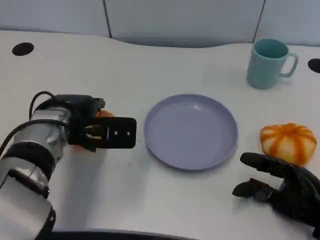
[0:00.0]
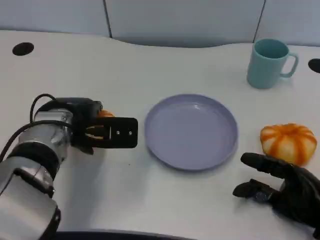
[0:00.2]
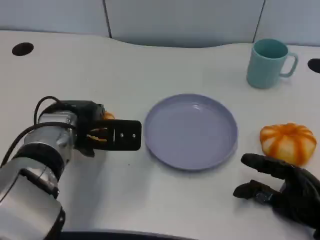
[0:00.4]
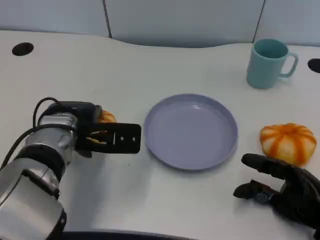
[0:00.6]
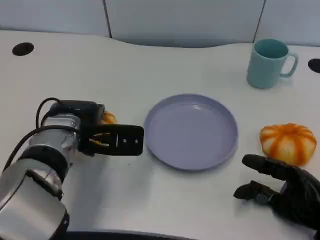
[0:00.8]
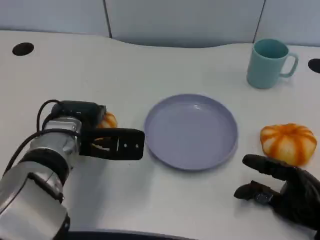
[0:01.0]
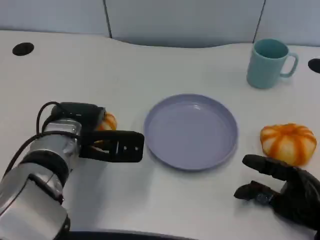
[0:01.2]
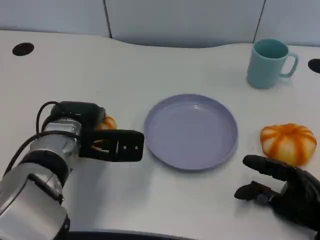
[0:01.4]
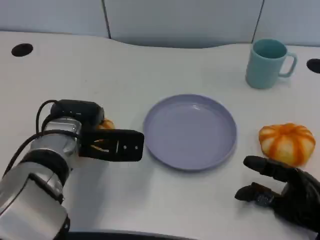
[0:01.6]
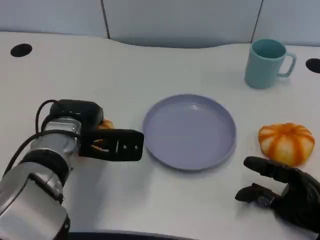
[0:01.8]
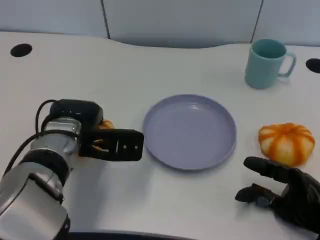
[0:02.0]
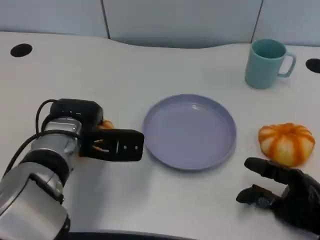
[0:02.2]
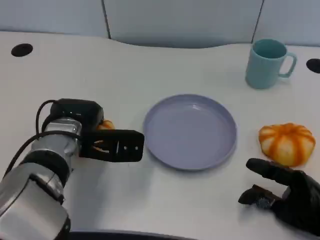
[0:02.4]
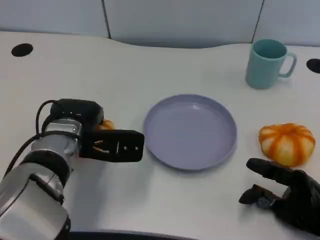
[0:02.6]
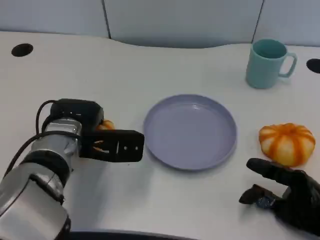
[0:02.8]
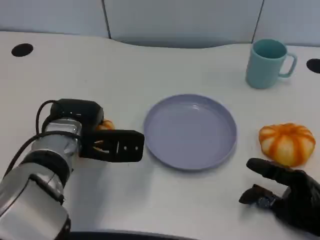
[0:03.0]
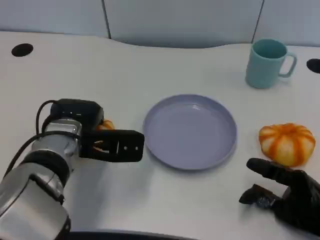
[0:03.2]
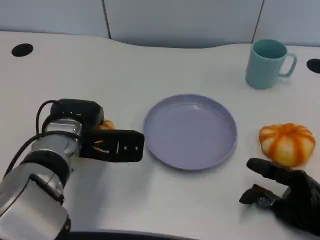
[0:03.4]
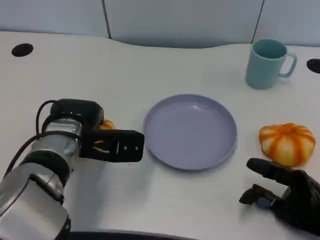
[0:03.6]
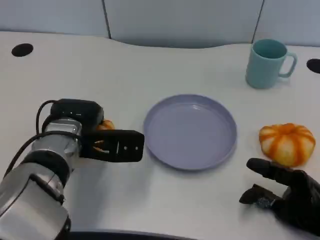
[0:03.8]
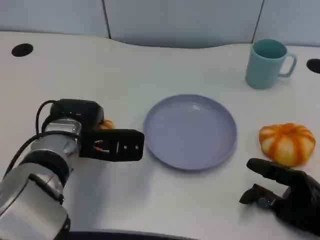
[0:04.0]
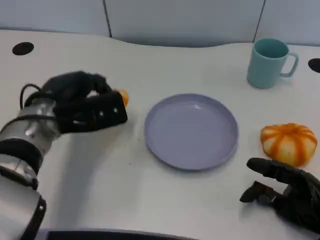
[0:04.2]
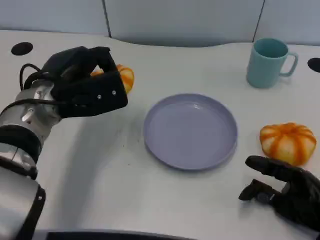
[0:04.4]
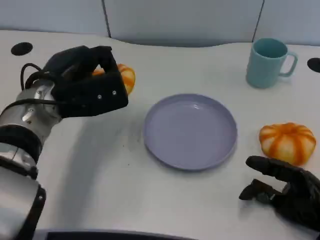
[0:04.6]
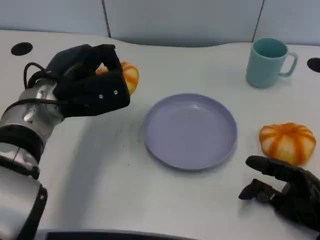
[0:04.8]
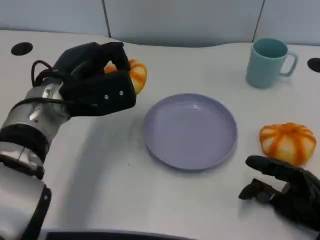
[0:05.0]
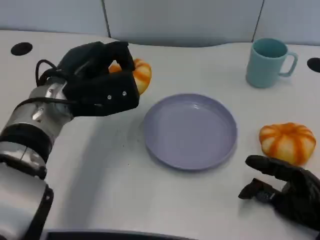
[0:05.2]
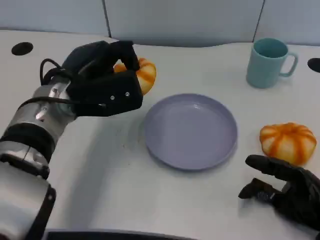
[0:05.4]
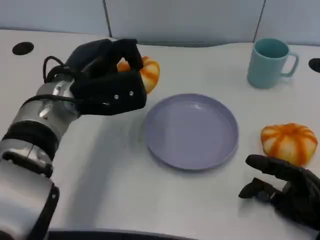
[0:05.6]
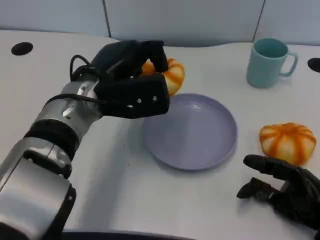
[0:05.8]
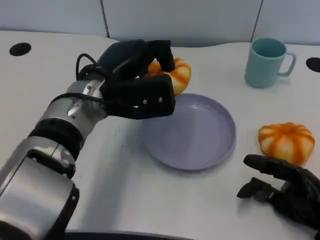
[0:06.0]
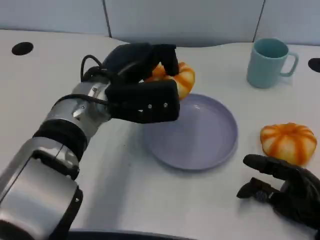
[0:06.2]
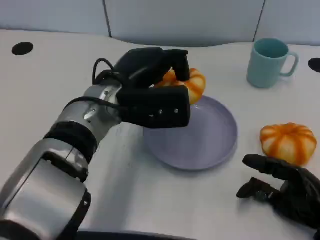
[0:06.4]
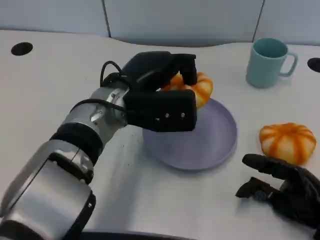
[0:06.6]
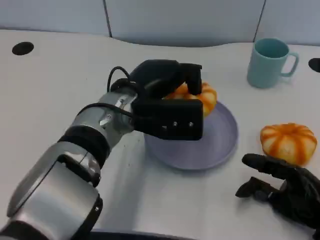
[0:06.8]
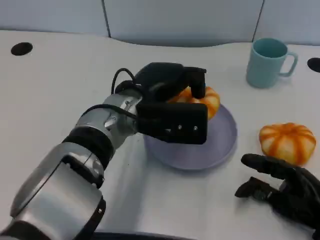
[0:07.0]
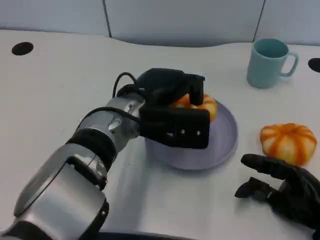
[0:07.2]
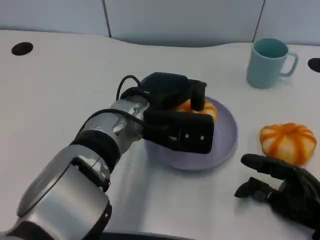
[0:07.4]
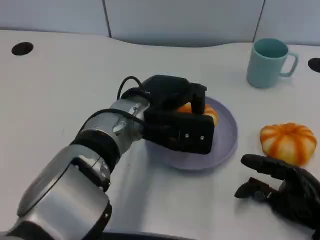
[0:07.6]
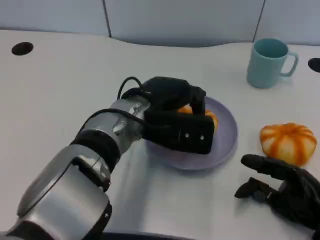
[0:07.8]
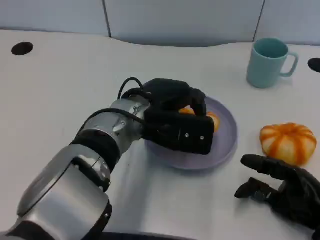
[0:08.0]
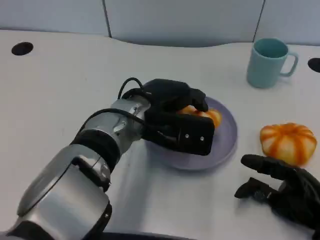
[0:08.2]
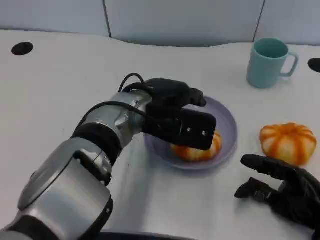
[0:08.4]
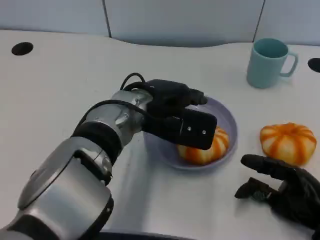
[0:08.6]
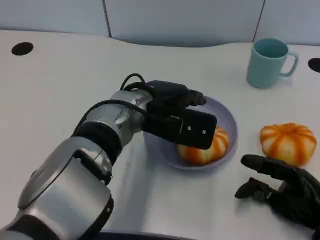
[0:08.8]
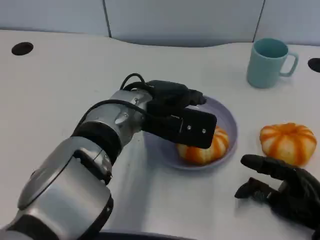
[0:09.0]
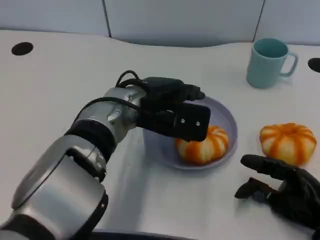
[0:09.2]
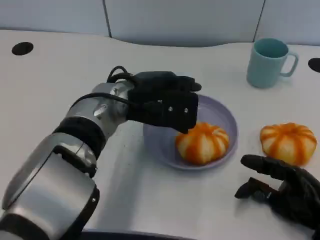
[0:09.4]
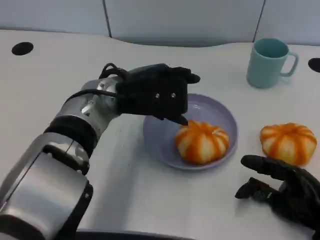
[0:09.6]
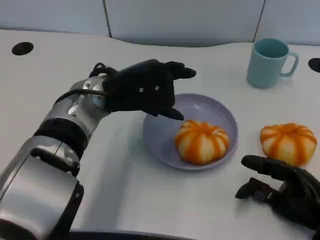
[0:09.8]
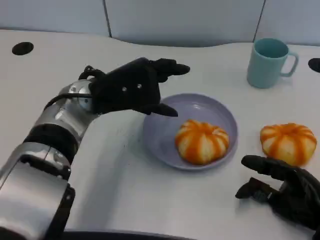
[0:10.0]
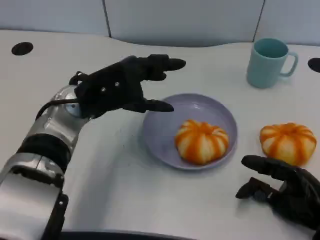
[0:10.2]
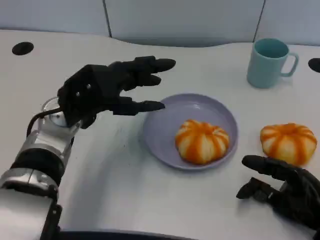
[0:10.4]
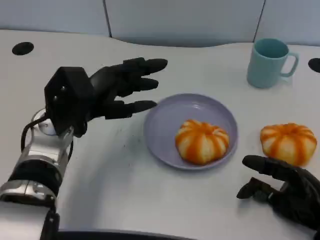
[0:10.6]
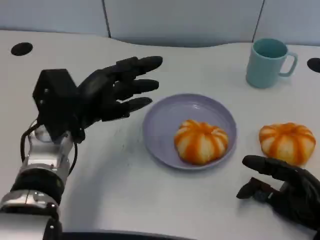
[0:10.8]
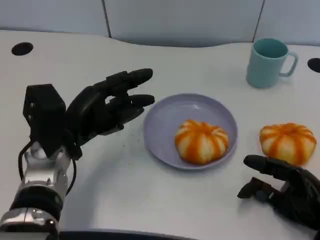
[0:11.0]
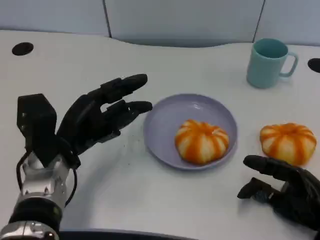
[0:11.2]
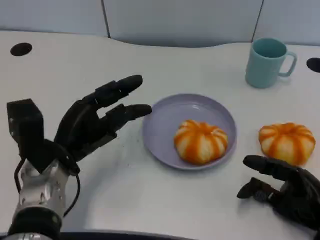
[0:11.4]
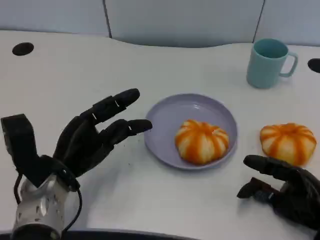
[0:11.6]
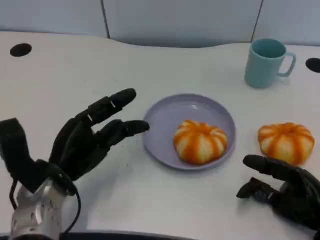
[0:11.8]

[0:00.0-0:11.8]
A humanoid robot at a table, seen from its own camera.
Task of the whole recording: Grasp the bread from the table and place it into the plate.
0:00.0 to 0:01.4: The hands move only a little.
0:01.4 to 0:03.0: Both hands stay about where they are.
0:03.0 to 0:04.4: The left hand heads upward, covering some 5 cm.
0:04.4 to 0:06.0: The left hand is displaced to the right by approximately 5 cm.
0:06.0 to 0:07.4: The left hand travels to the right by roughly 5 cm.
0:07.4 to 0:08.8: The hands move only a little.
0:08.8 to 0:10.4: The left hand is displaced to the left by some 10 cm.
0:10.4 to 0:11.8: The left hand shifts approximately 10 cm downward and backward.

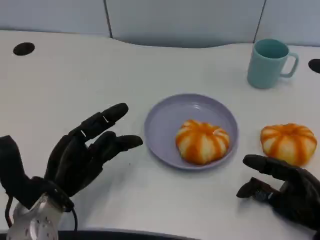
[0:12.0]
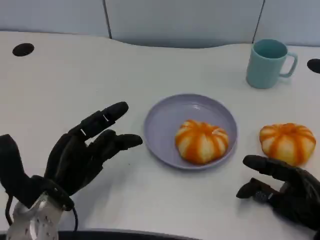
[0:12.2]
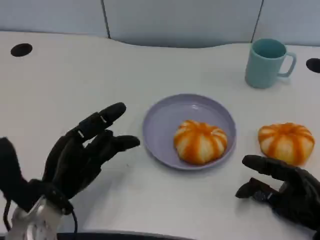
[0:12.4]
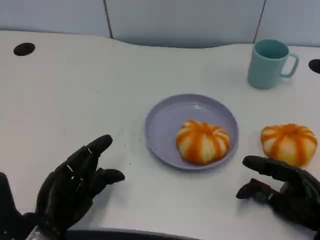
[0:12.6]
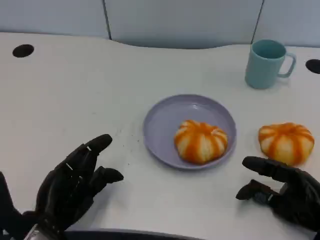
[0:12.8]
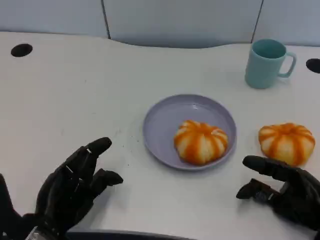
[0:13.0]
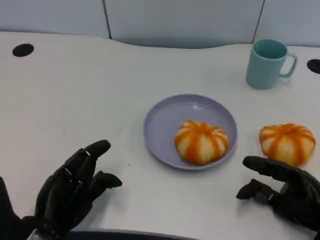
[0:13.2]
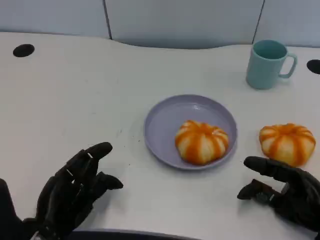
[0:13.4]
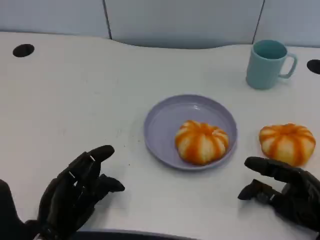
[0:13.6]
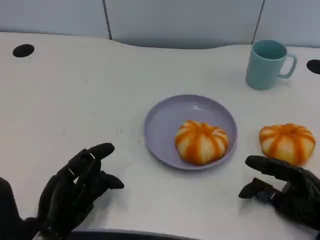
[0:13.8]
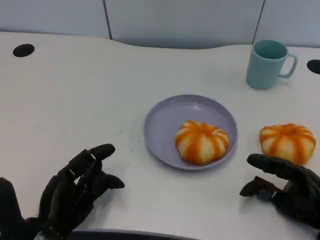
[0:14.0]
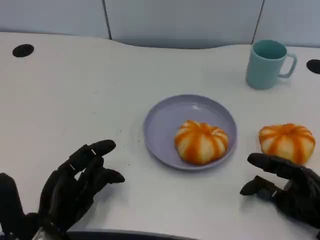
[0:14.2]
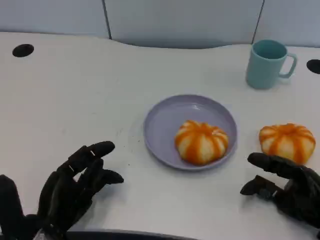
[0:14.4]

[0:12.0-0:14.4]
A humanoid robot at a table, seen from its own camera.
Task of the whole recording: Grasp the bread from the table and place it into the plate.
0:12.0 to 0:13.2: The left hand shifts by about 5 cm.
0:13.2 to 0:14.4: The hands stay close to where they were, moving slightly.

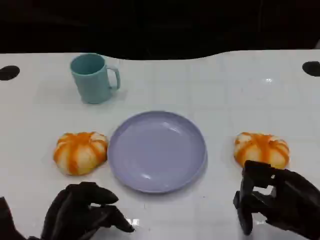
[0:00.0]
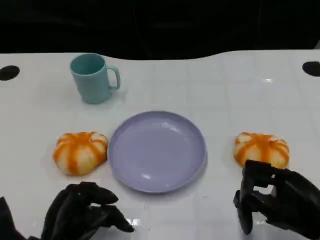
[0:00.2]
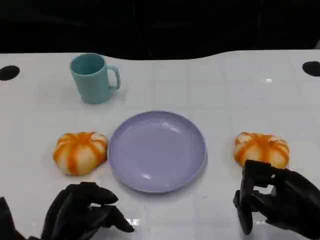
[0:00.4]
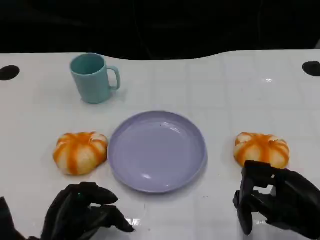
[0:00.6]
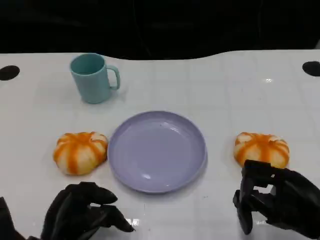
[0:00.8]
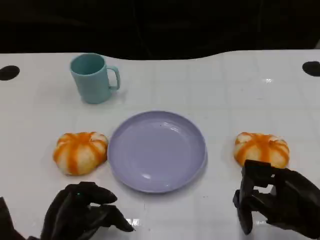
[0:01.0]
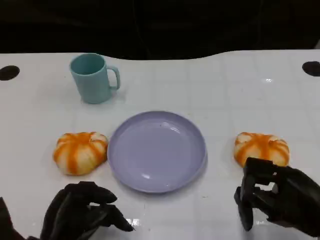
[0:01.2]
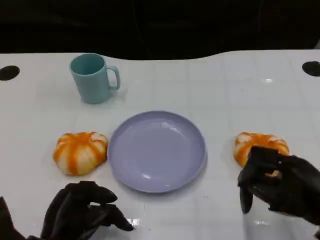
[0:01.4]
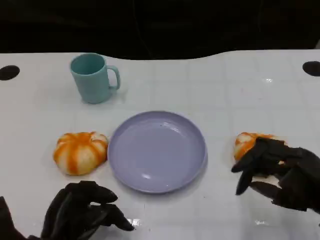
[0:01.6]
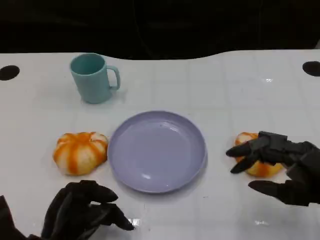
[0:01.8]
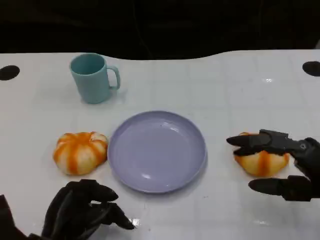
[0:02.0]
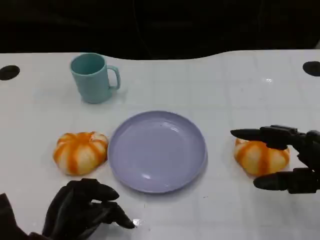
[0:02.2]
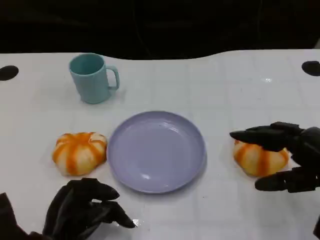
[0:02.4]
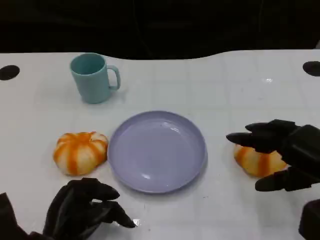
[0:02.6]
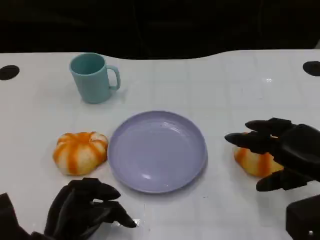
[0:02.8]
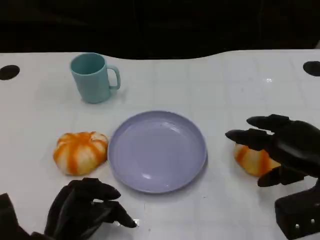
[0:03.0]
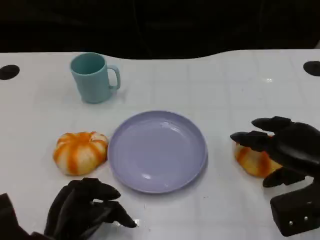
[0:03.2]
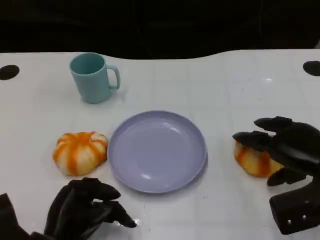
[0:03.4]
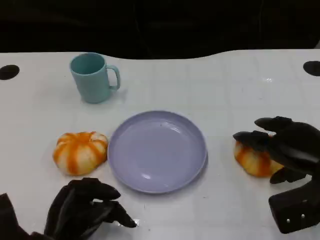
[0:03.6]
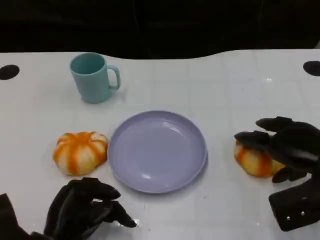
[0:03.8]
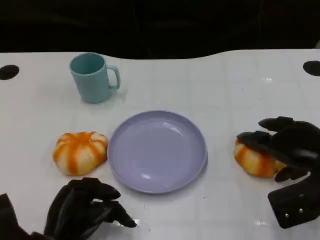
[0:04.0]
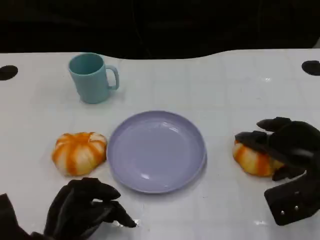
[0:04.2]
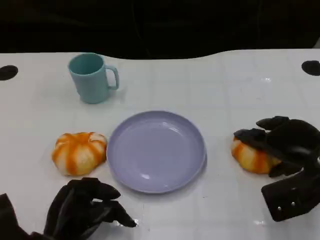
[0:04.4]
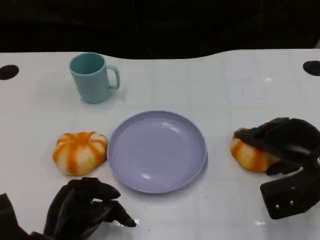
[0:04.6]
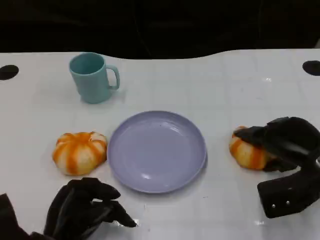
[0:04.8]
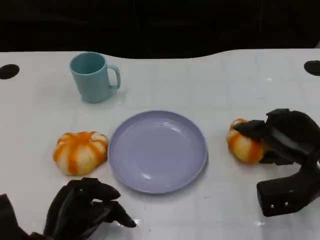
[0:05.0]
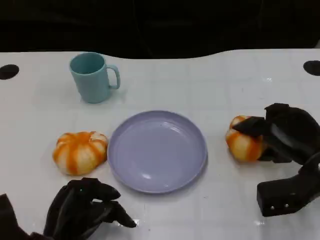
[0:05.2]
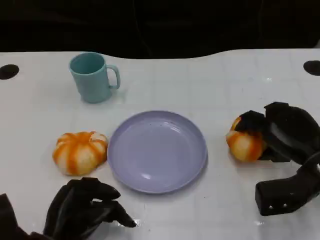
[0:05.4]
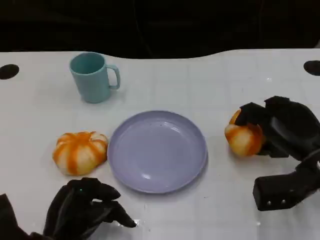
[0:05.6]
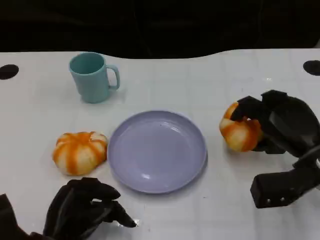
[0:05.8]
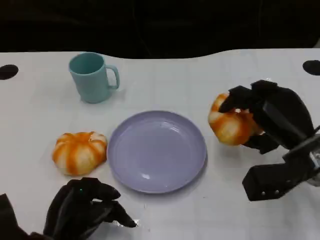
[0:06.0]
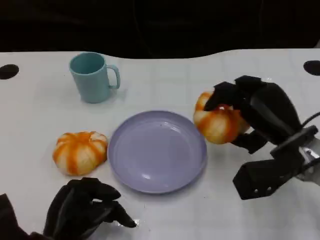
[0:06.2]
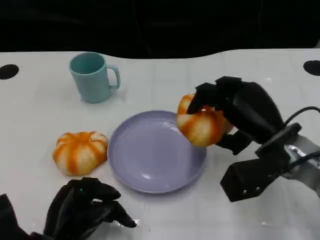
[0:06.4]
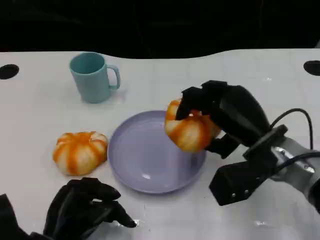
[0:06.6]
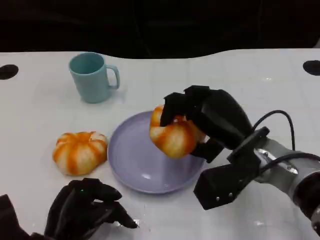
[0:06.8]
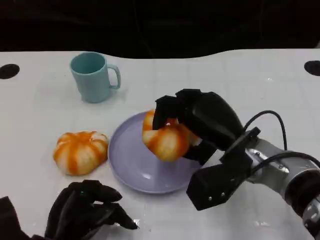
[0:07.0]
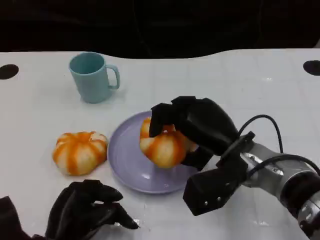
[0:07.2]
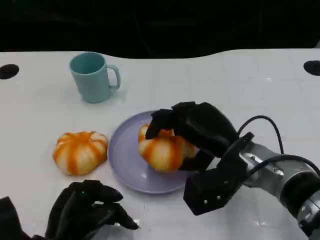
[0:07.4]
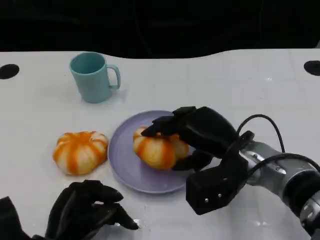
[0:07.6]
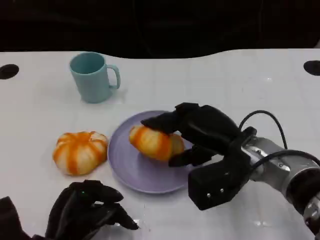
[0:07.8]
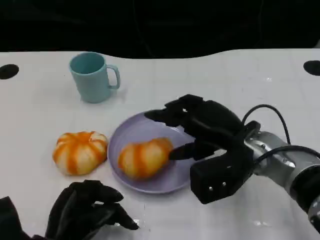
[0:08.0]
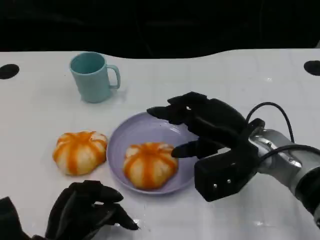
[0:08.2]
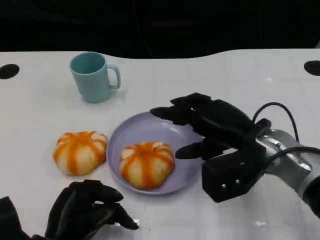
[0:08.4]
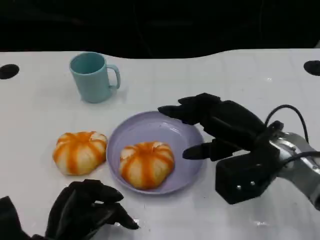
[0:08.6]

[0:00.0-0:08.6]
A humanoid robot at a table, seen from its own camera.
Task of the whole recording: Grasp the bread from the table and place it into the plate.
0:00.0 to 0:01.4: The hands move only a little.
0:01.4 to 0:02.8: The right hand moves forward, approximately 5 cm.
0:02.8 to 0:04.4: The right hand shifts by about 5 cm.
0:05.8 to 0:07.2: The right hand goes about 10 cm to the left.
0:07.2 to 0:08.6: The right hand travels to the right by roughly 5 cm.
